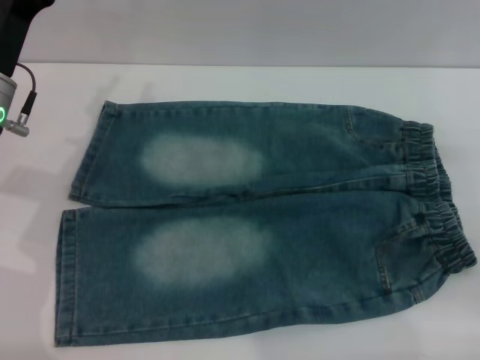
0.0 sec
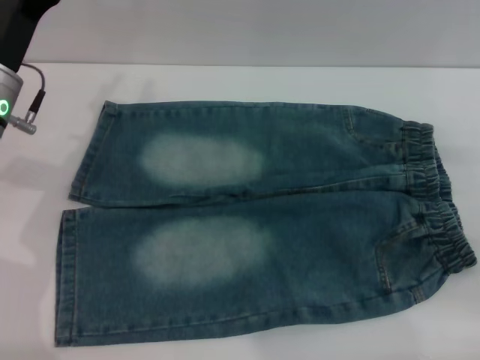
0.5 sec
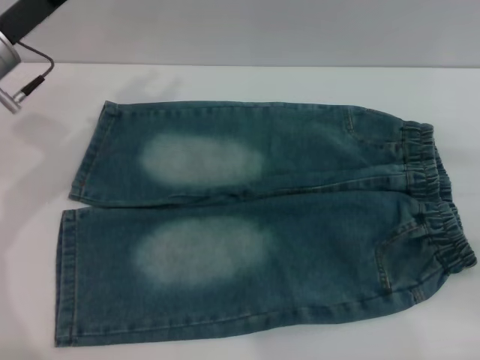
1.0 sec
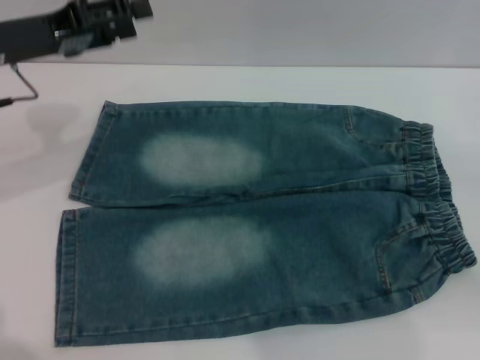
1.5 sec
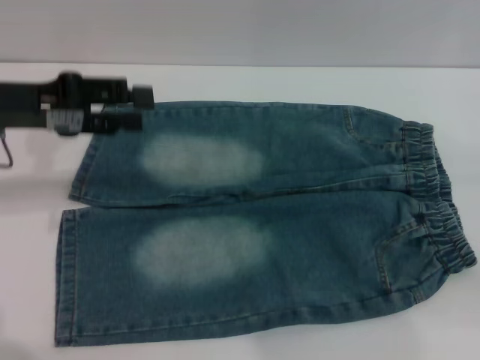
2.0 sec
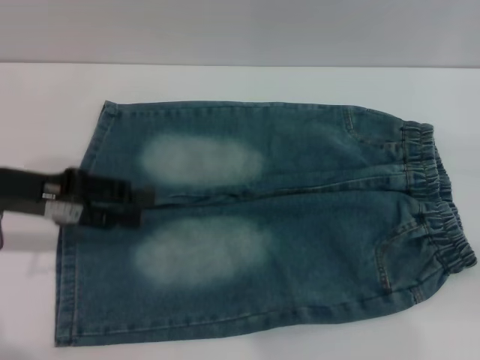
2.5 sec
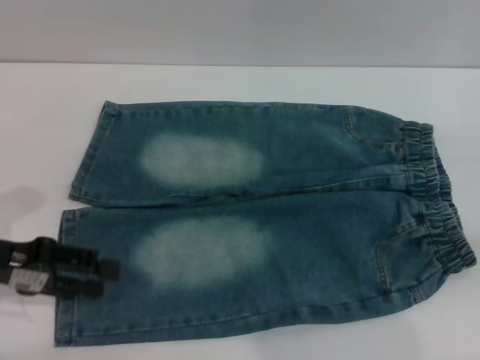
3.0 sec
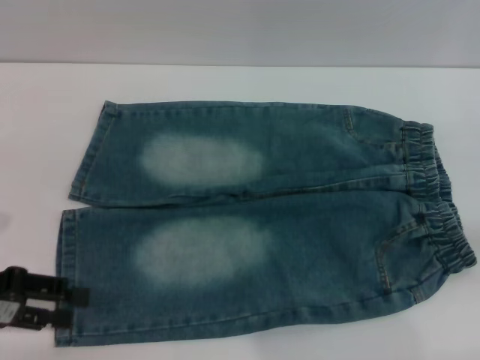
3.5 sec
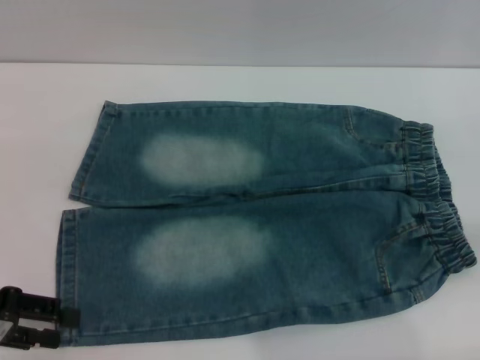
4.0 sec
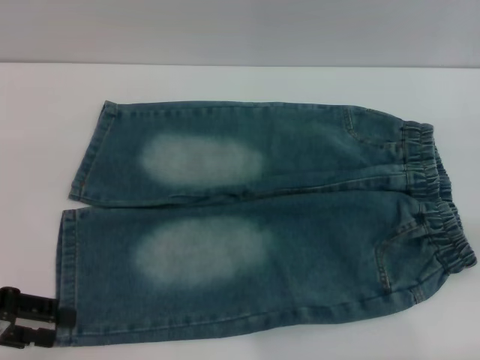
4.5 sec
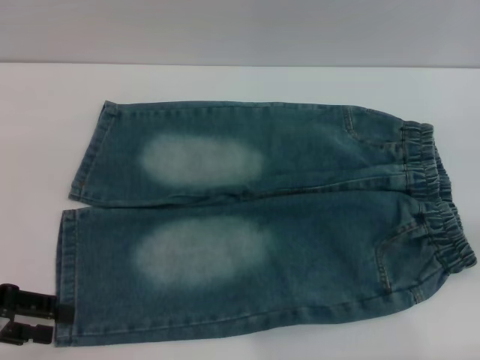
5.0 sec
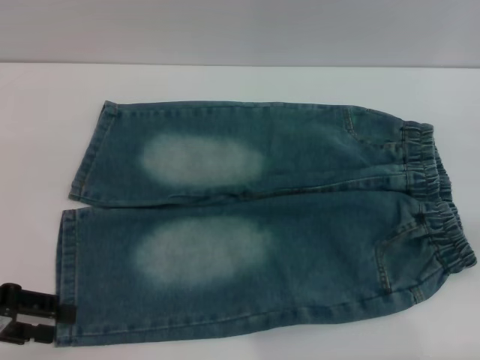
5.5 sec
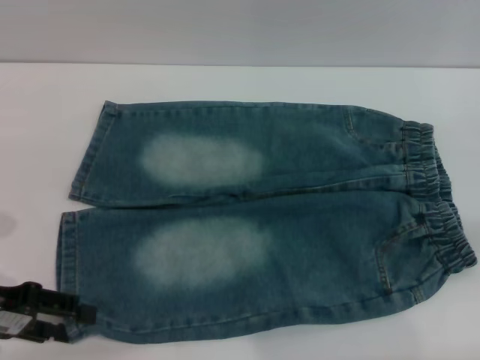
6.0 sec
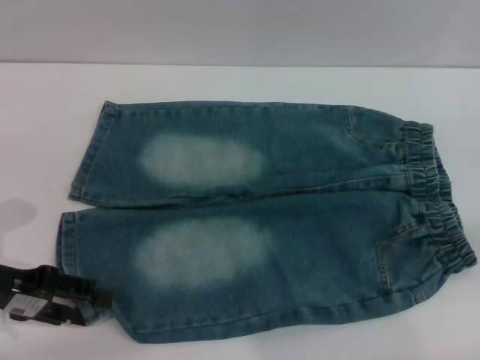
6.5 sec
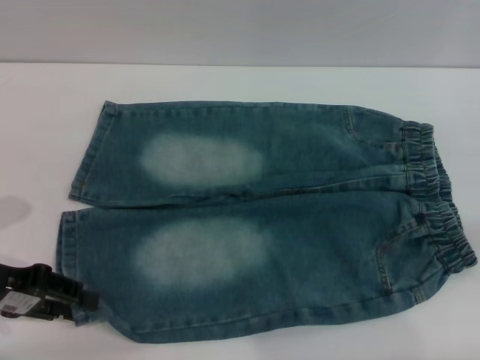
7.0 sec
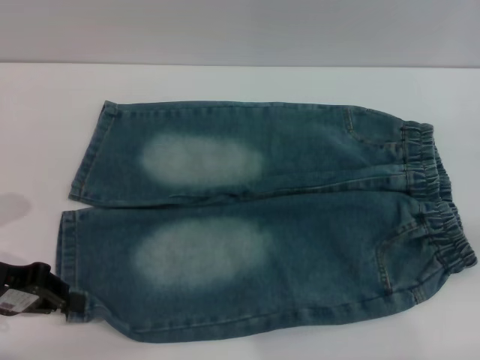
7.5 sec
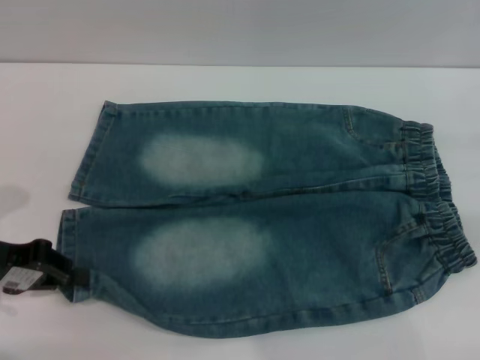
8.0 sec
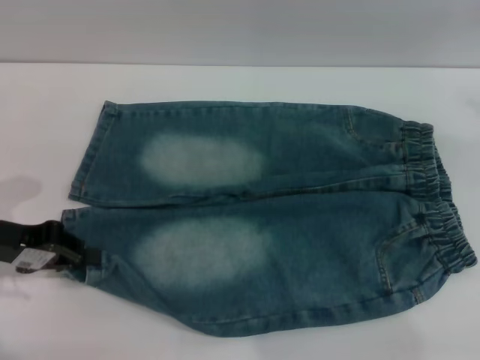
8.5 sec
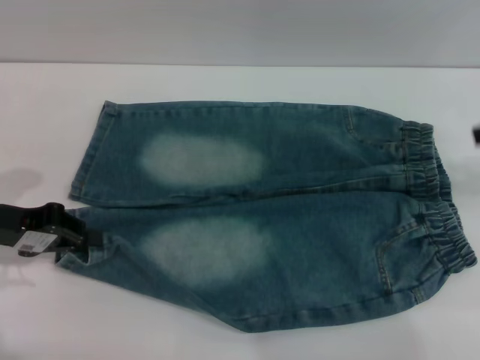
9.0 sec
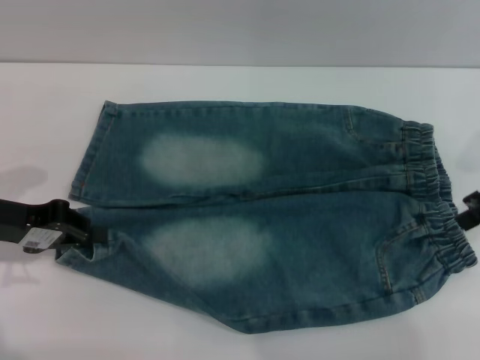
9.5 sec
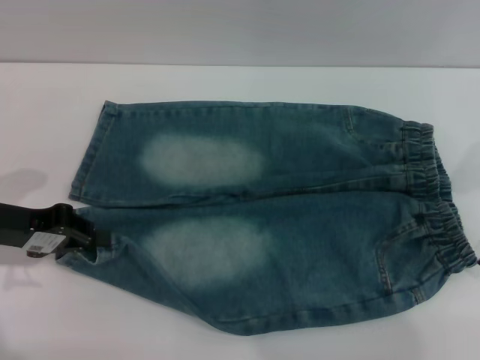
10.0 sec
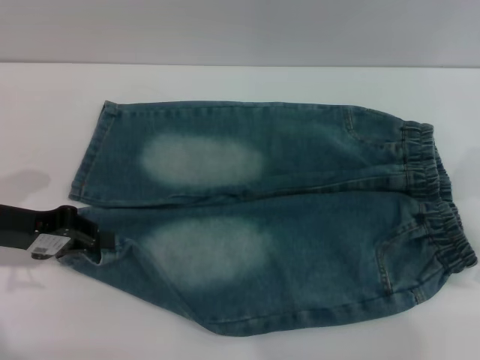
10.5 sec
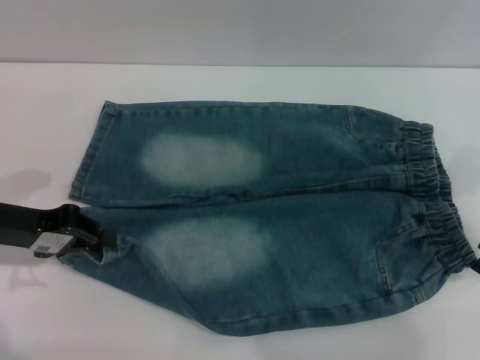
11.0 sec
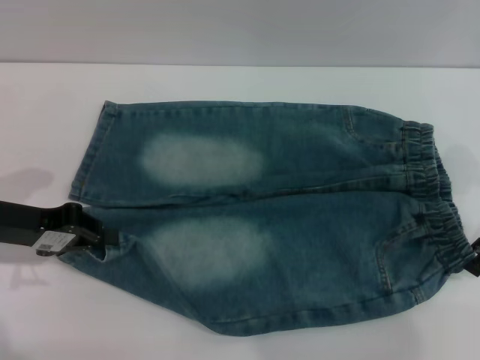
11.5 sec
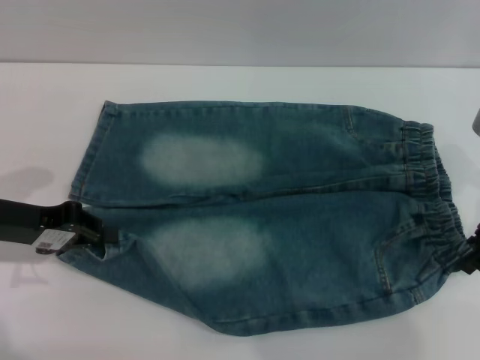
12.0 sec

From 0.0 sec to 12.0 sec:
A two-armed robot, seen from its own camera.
From 0.0 sec to 2.0 sec: The left gripper goes about 5 cm upward.
From 2.0 sec to 4.0 sec: The left gripper moves backward, downward and to the left, roughly 15 cm.
From 4.0 sec to 6.0 sec: There are only small adjustments of the grippers.
From 6.0 sec to 8.0 sec: The left gripper closes.
From 8.0 sec to 10.0 sec: The right gripper travels to the left by approximately 15 cm.
From 10.0 sec to 12.0 sec: The grippers make only small movements.

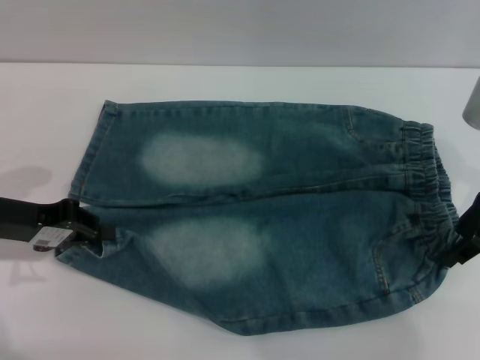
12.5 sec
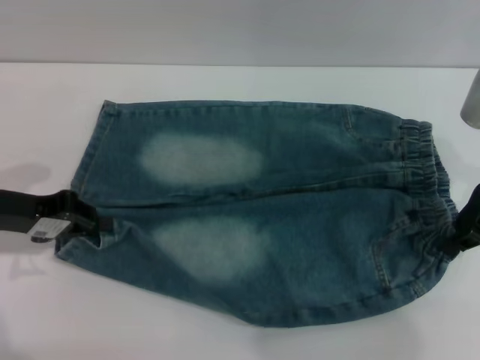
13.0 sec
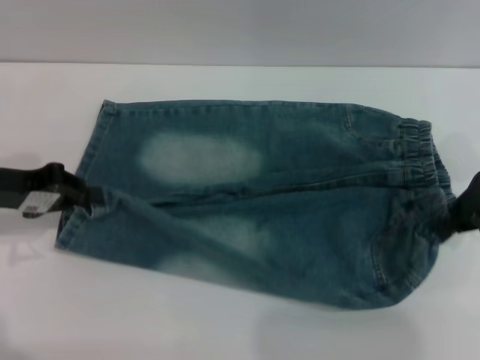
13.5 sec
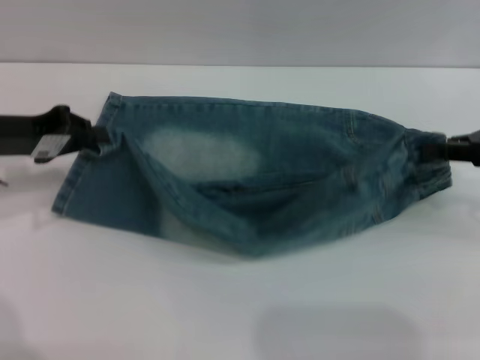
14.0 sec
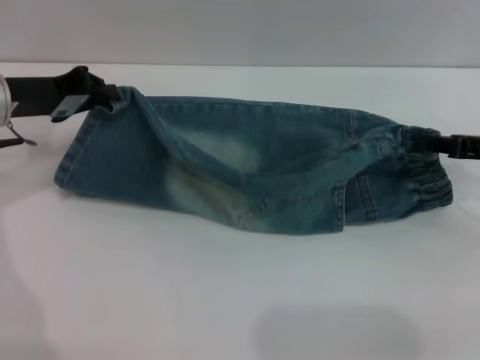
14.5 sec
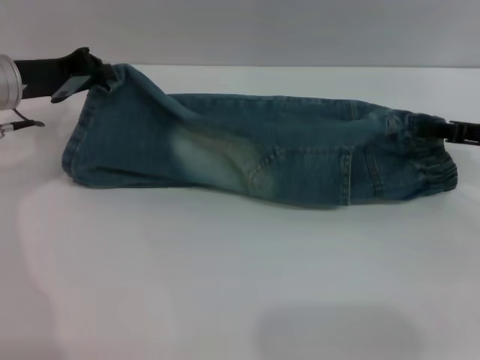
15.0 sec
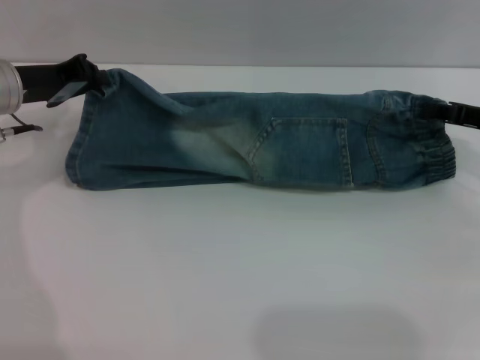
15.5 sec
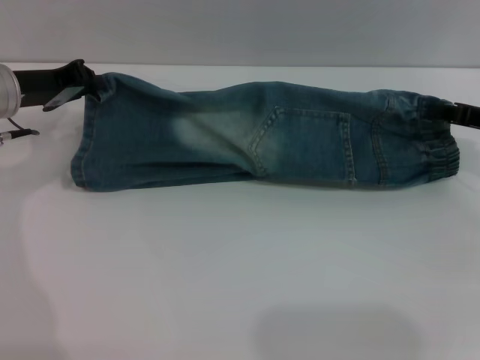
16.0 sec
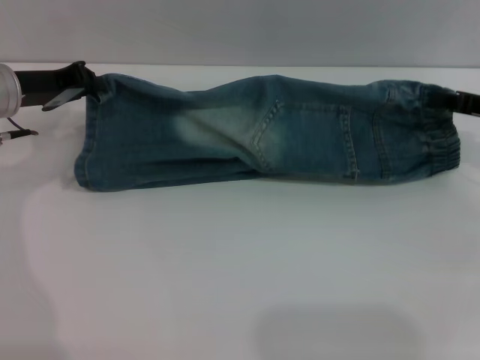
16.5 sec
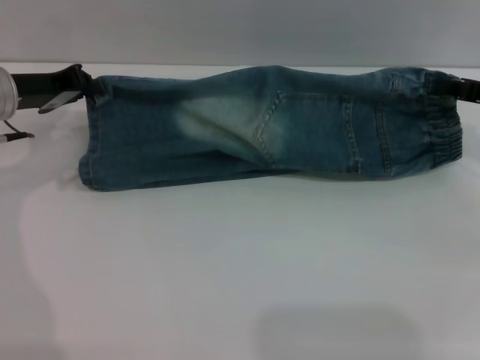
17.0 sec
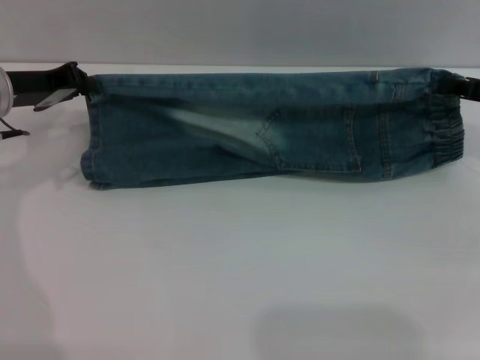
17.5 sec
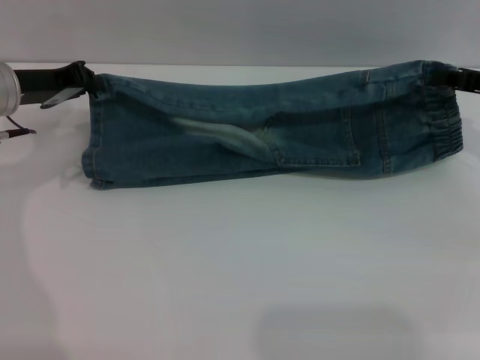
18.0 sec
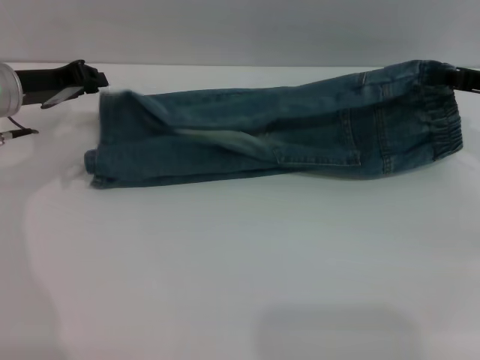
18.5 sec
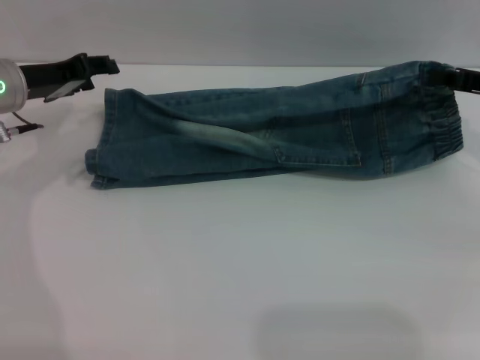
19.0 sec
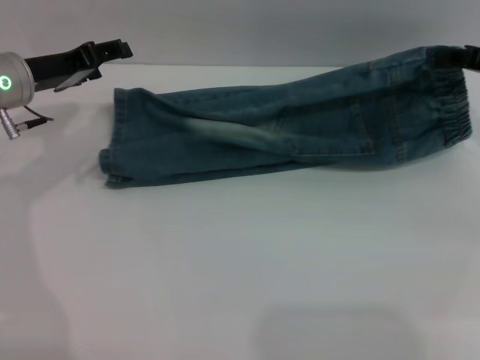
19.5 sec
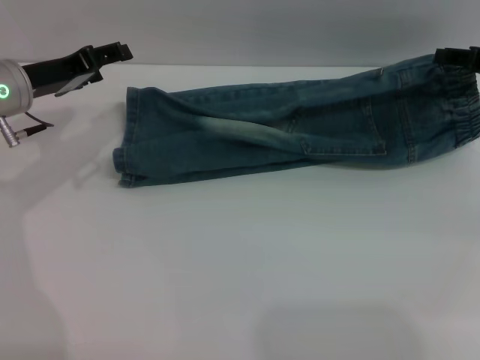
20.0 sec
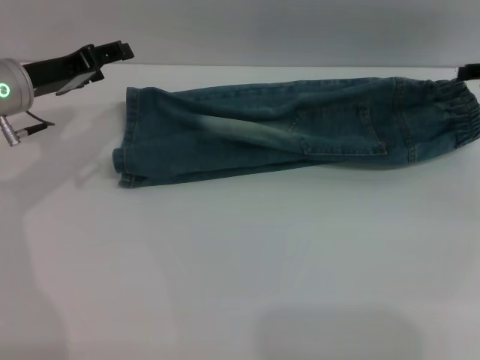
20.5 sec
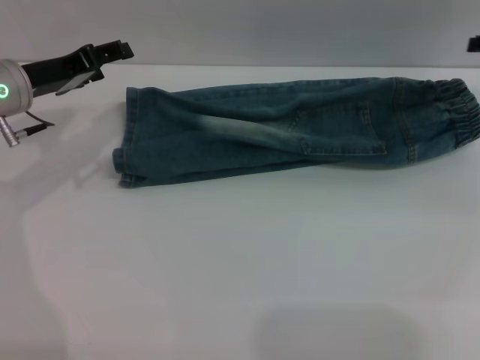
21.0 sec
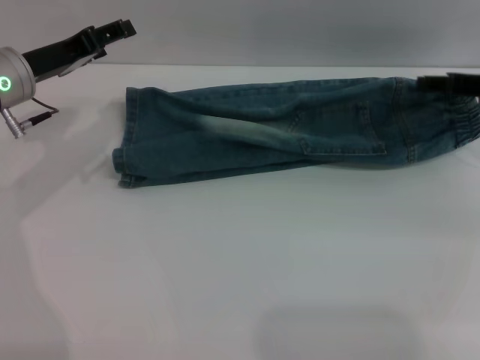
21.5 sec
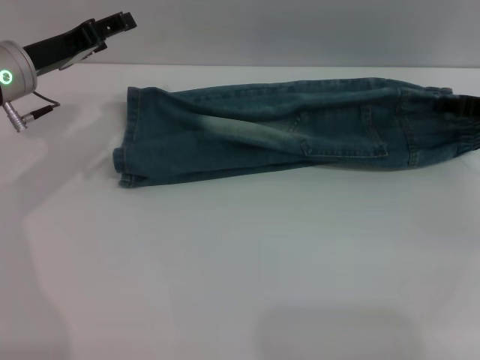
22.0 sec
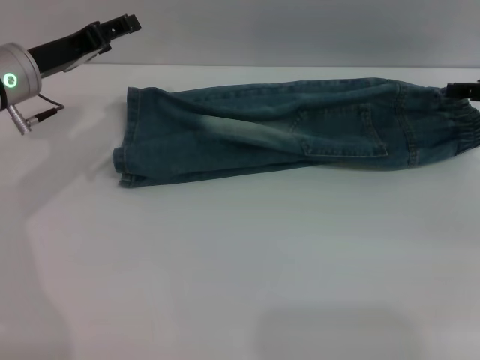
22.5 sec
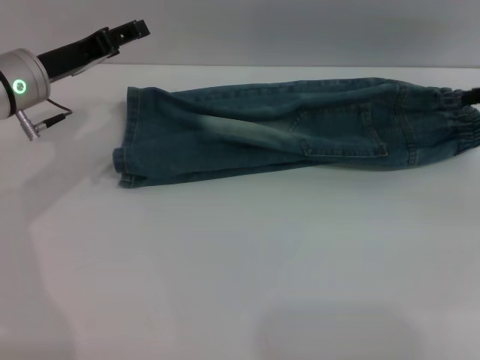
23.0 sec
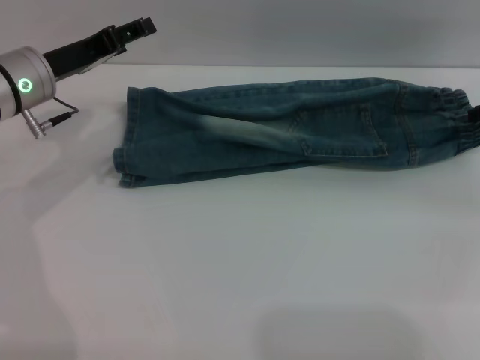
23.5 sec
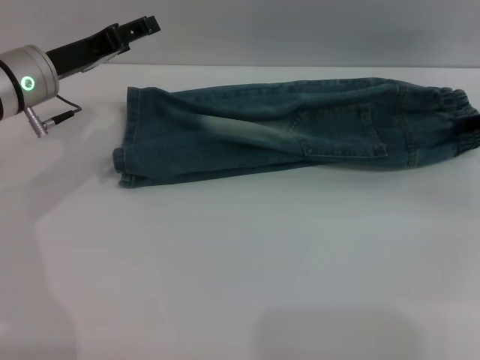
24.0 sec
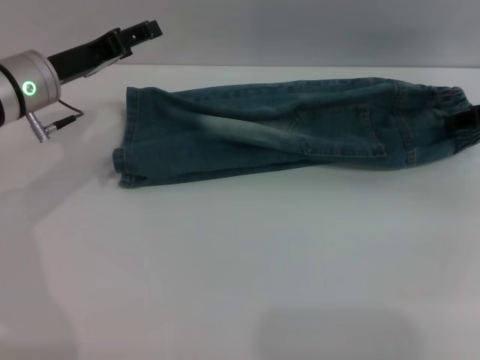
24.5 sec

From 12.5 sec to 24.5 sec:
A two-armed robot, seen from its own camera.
Step, from 12.5 sec to 20.5 sec: Fold the bottom of the pants upward with both grippers.
From 12.5 sec to 14.5 sec: The left gripper shifts roughly 10 cm forward, while the right gripper goes approximately 5 cm to the right, and closes its fingers.
From 16.5 sec to 18.5 sec: The grippers stay close to where they were, moving slightly.
From 18.5 sec to 20.5 sec: The left gripper opens its fingers. Meanwhile the right gripper opens up.
From 20.5 sec to 24.5 sec: The grippers move only a little.

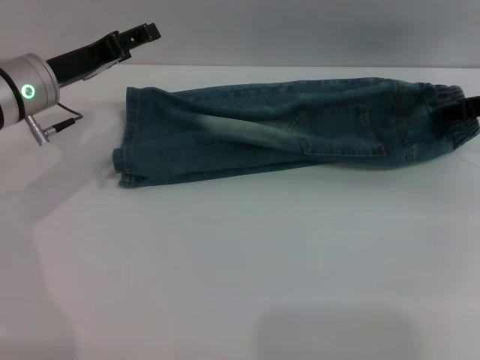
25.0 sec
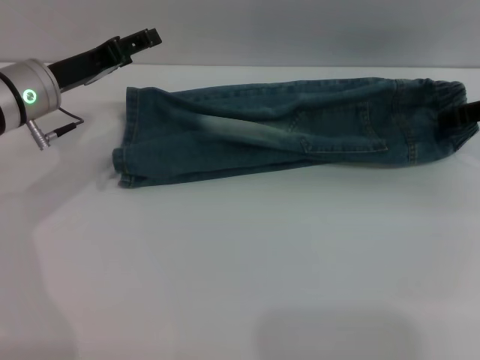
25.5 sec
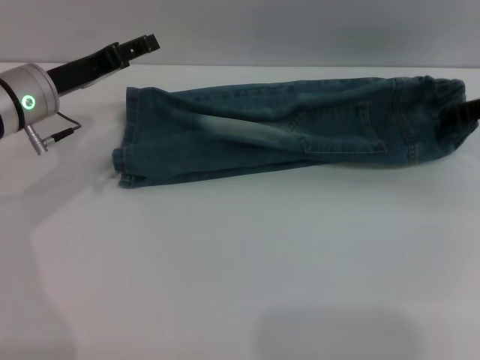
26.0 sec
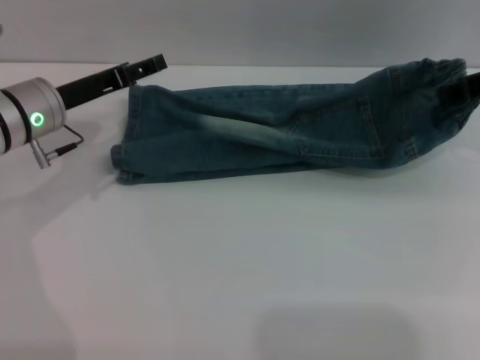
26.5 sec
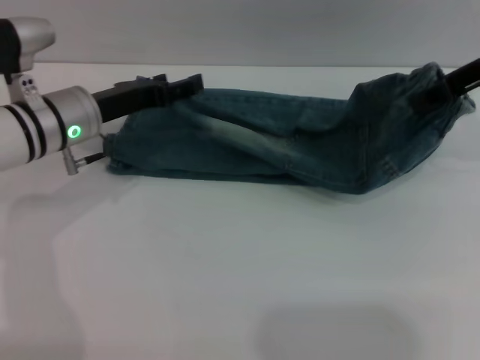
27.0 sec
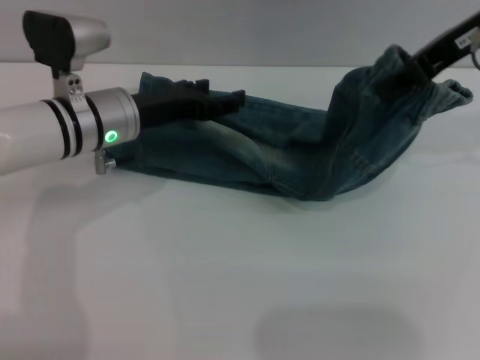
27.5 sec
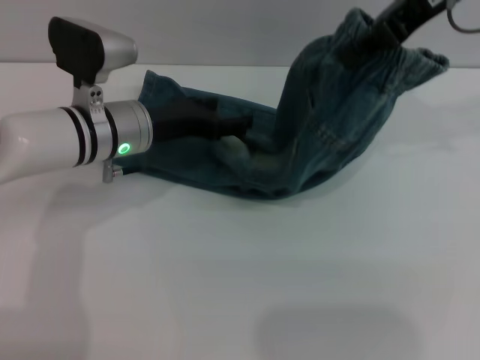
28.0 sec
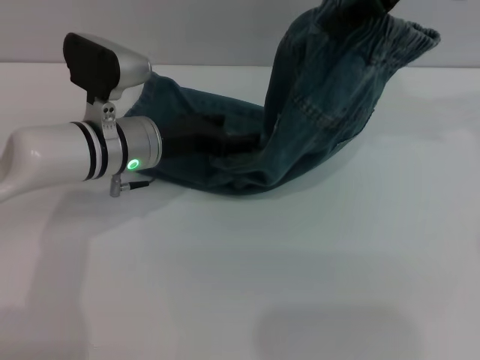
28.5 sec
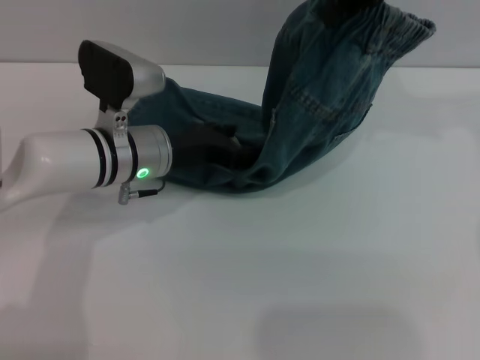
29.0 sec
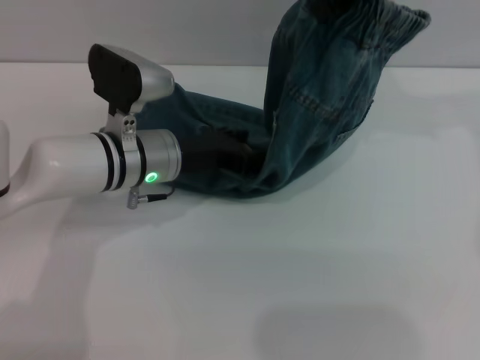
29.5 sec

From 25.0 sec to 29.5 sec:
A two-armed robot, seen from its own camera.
From 25.0 sec to 27.0 sec: The right gripper goes about 10 cm upward and to the left, and closes up.
From 27.0 sec to 29.5 sec: The left gripper moves to the right, some 10 cm; the right gripper goes some 15 cm upward and to the left.
